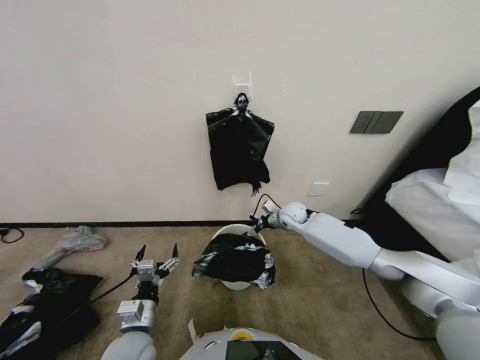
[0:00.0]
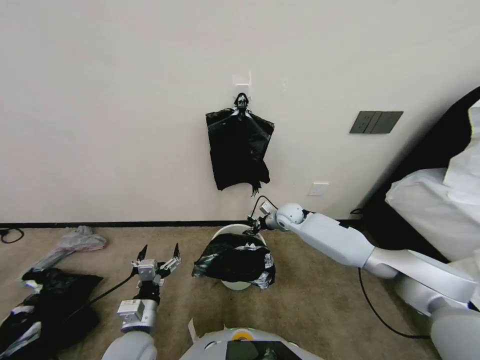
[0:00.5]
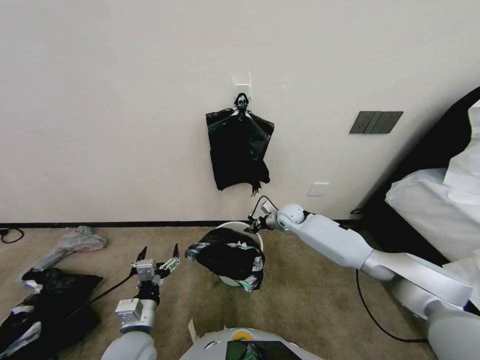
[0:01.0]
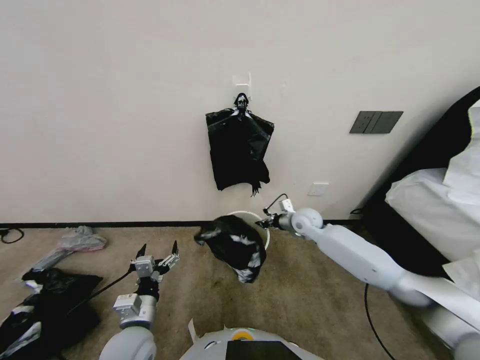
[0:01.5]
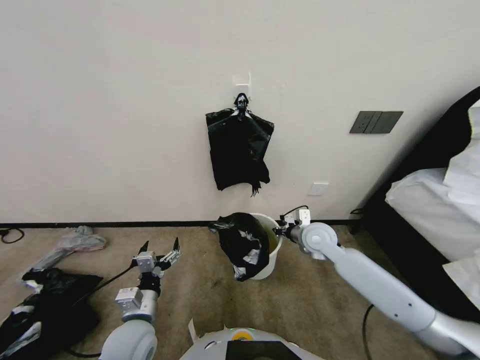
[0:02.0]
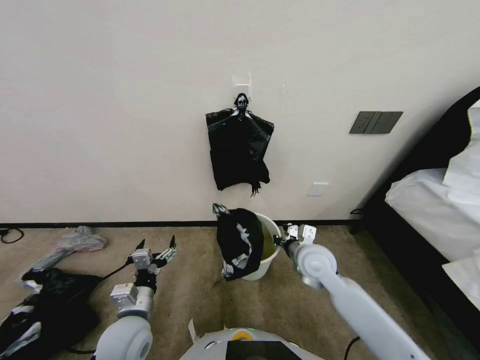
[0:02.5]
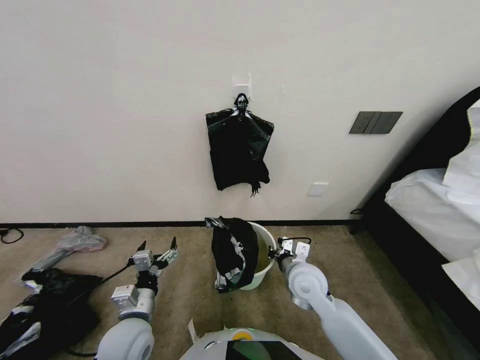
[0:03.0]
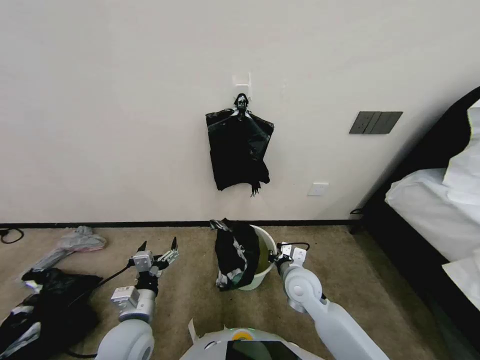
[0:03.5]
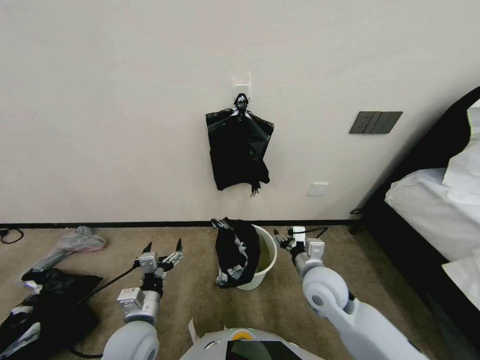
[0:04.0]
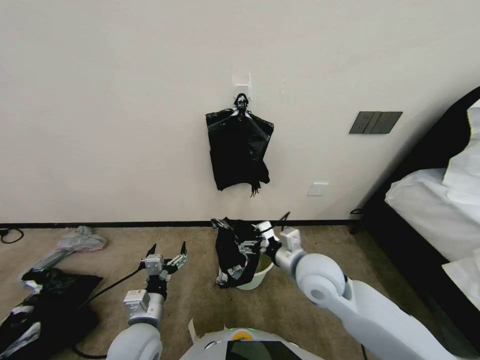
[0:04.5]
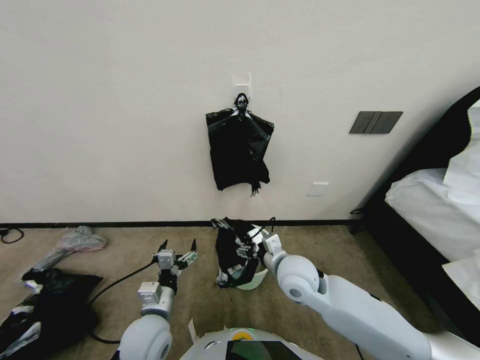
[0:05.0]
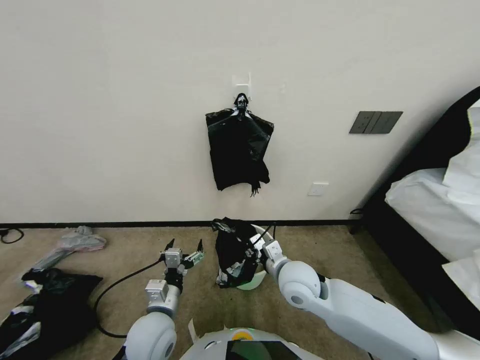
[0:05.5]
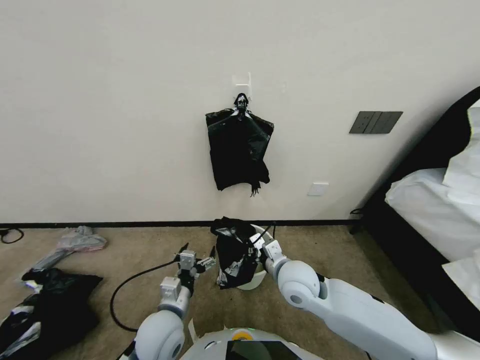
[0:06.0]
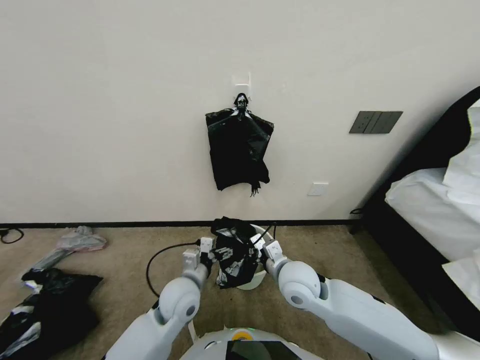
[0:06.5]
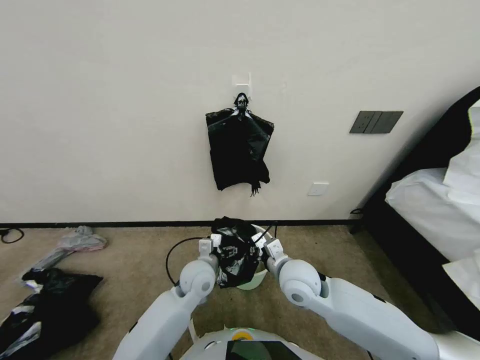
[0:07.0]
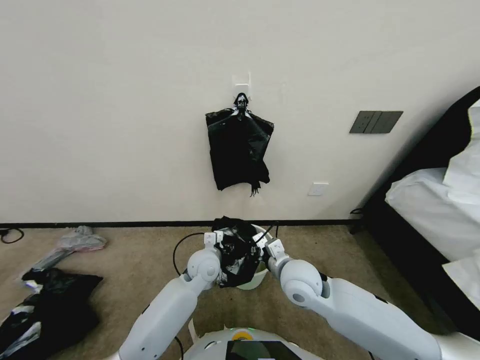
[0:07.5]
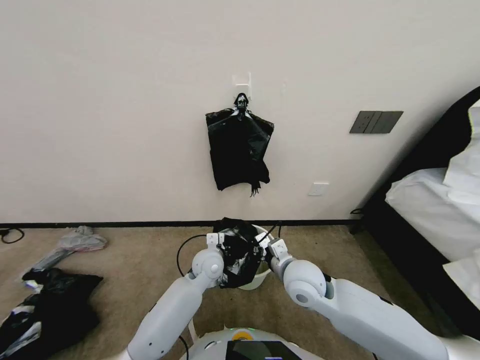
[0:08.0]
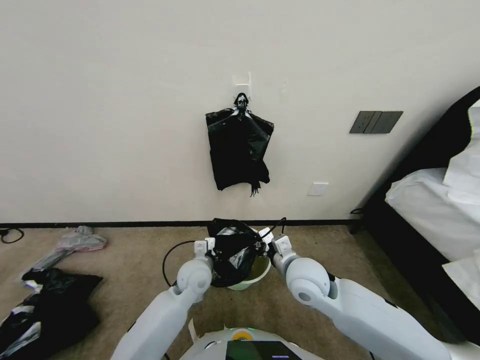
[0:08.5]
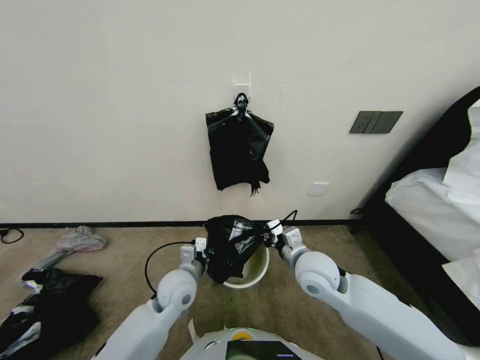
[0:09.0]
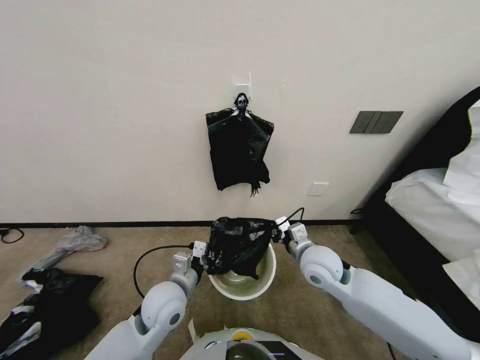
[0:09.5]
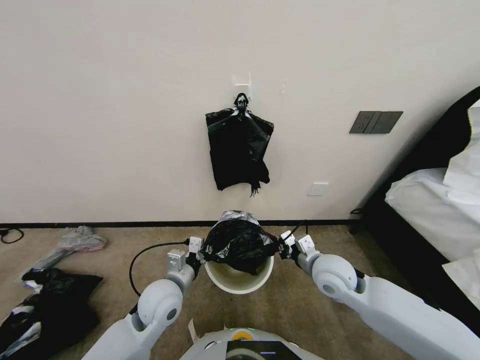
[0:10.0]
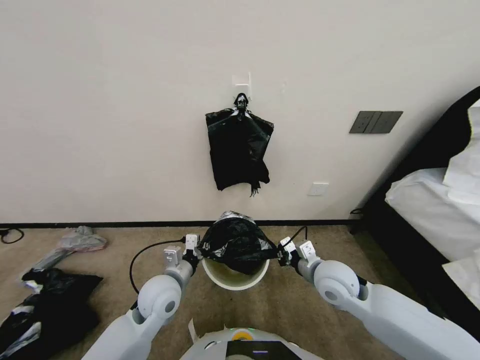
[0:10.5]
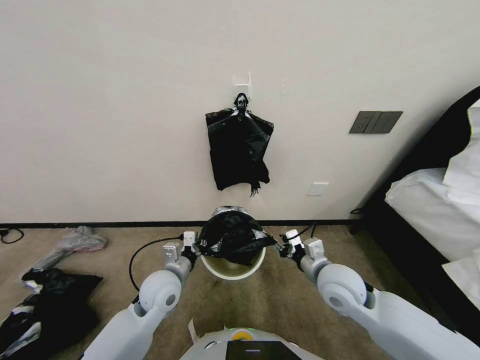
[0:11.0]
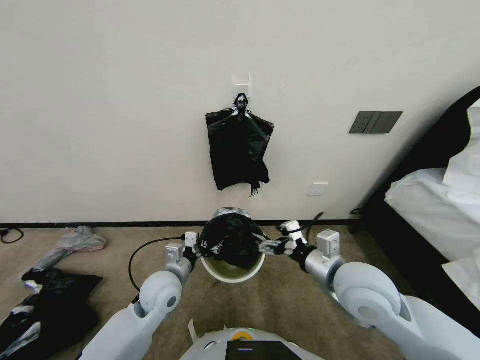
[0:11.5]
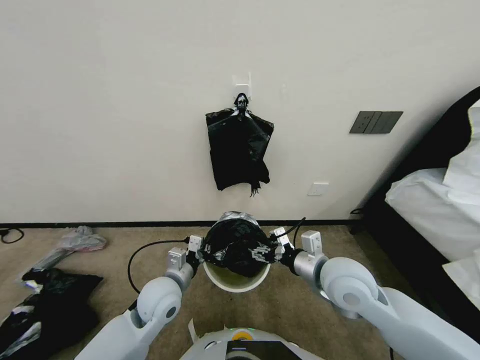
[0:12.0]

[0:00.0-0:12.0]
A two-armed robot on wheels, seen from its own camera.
Task of the whole recording: Place a trash bag onto the trash bin.
0:00.0 to 0:02.0: The right gripper moves backward, roughly 10 cm, and closes up.
0:02.0 to 0:04.0: The right gripper moves backward, approximately 15 cm, and opens up.
0:04.0 to 0:06.0: The right gripper is displaced to the left by some 5 cm, and closes its fingers; the left gripper moves some 5 cm.
0:06.0 to 0:08.0: The left gripper goes about 20 cm forward and to the right, and closes.
0:08.0 to 0:10.0: The left gripper is displaced backward and to the left by approximately 15 cm; the right gripper is displaced to the right by some 10 cm.
0:10.0 to 0:12.0: The right gripper shifts about 5 cm upward, and opens.

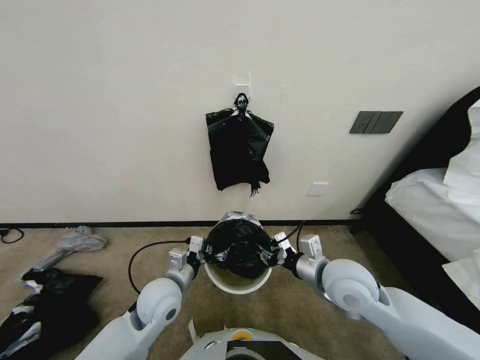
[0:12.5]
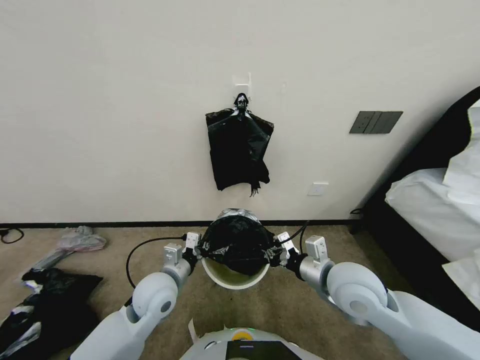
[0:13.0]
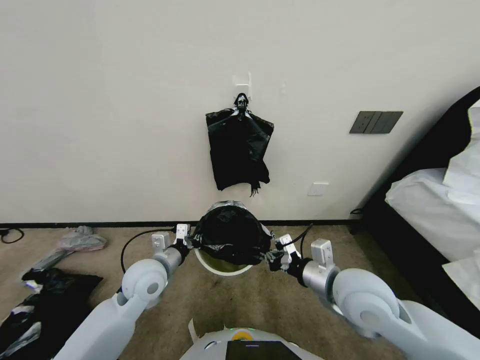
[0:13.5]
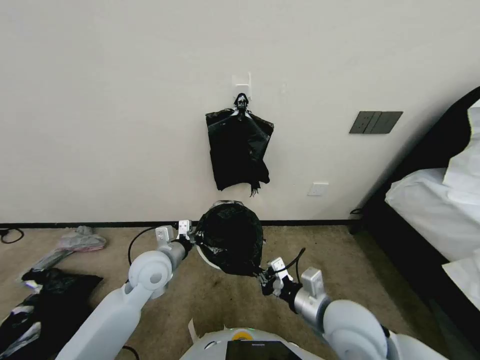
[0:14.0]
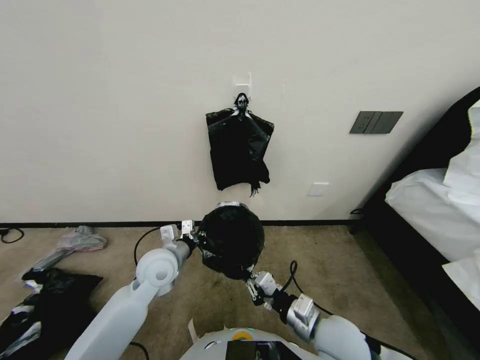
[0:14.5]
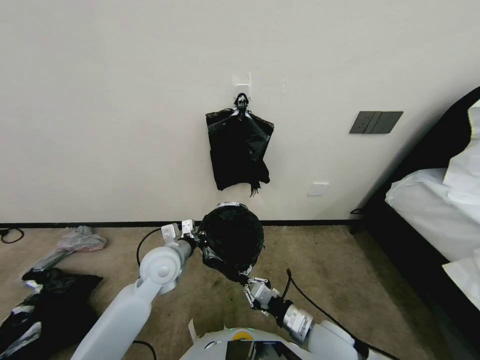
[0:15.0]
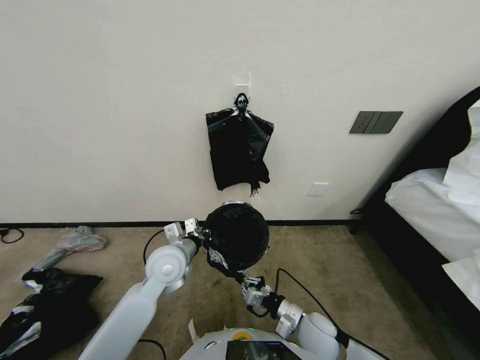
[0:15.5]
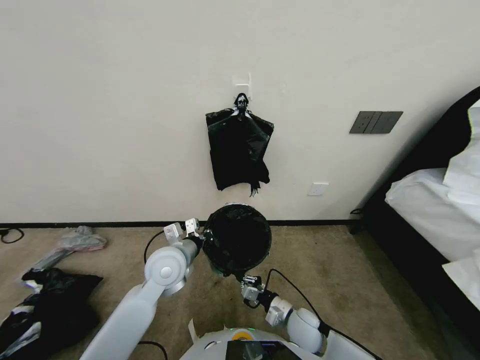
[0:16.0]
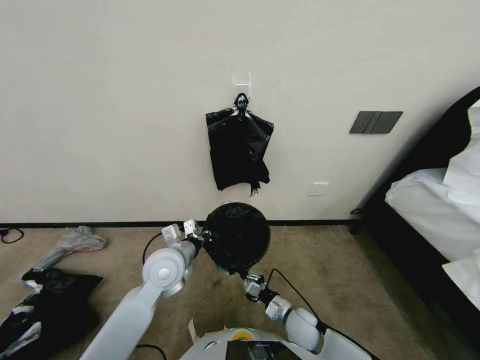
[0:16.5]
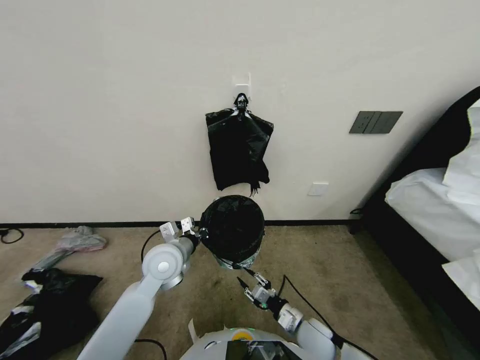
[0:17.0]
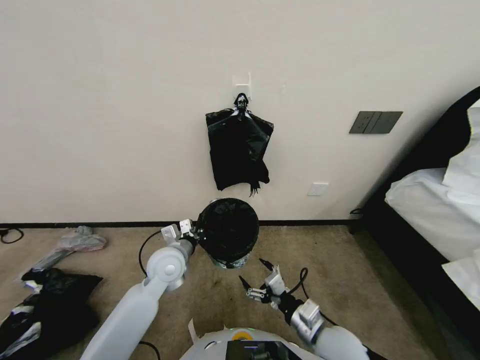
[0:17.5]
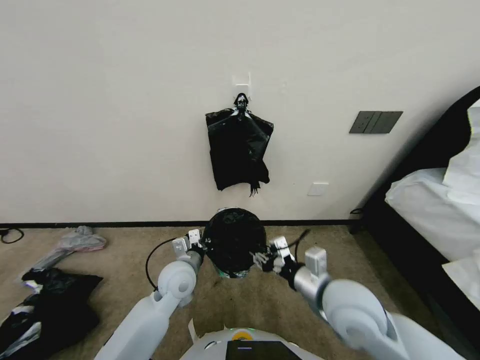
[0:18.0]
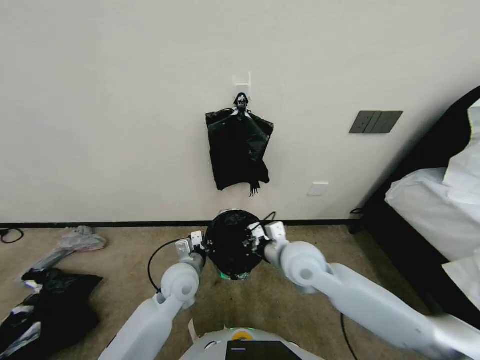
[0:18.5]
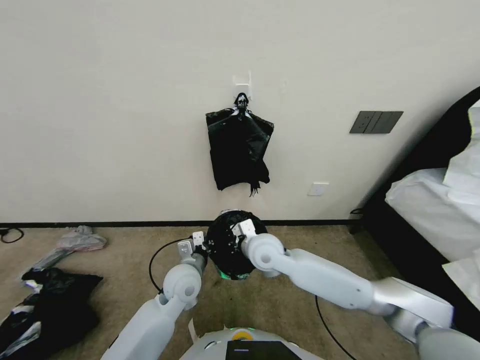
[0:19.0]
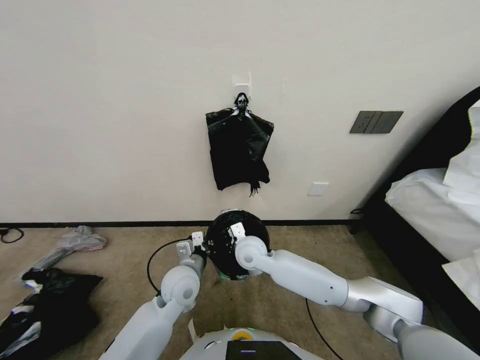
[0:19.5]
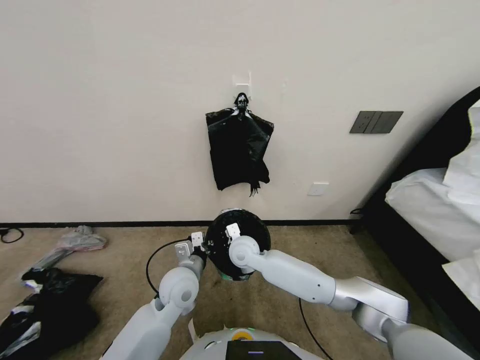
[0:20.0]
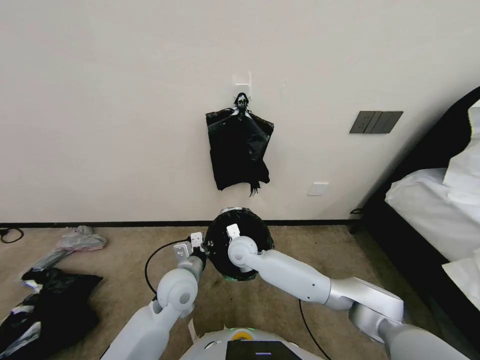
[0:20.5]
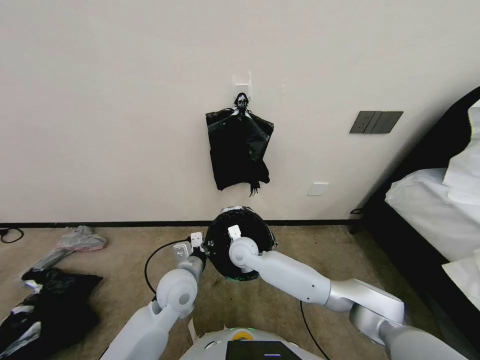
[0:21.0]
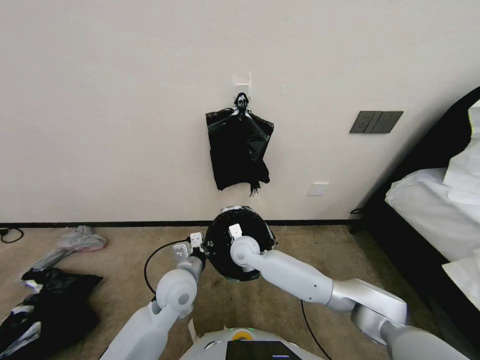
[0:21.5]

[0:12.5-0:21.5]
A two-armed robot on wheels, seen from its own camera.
Task of the whole recording: Place a trash bag onto the trash bin.
0:12.5 to 0:14.5: The left gripper heads forward, covering about 5 cm. Meanwhile the right gripper travels backward and downward by some 10 cm.
0:14.5 to 0:17.0: The right gripper moves downward, about 15 cm.
0:17.0 to 0:19.5: The left gripper goes approximately 5 cm downward; the right gripper heads forward, to the left and upward, covering about 30 cm, and opens, then closes once more.
0:19.5 to 0:21.5: The right gripper moves roughly 5 cm.

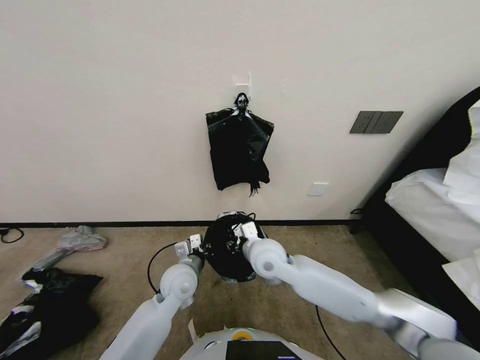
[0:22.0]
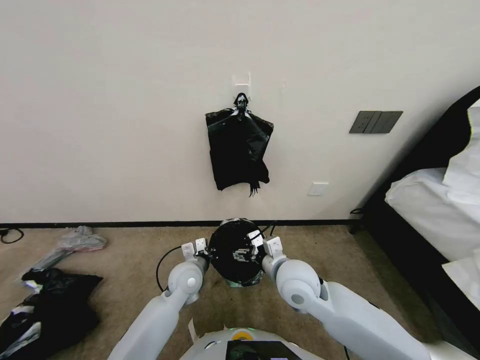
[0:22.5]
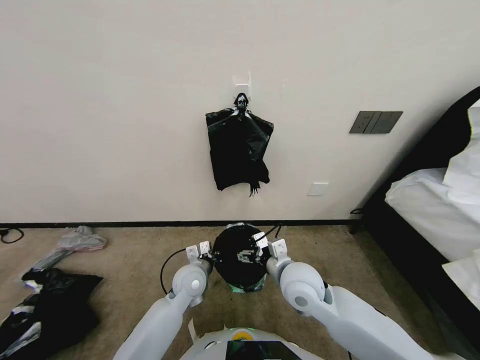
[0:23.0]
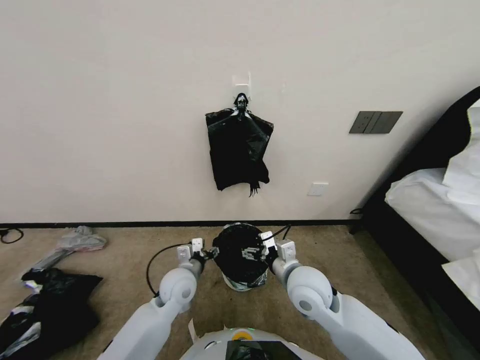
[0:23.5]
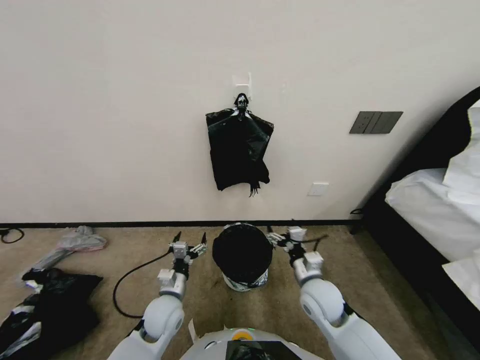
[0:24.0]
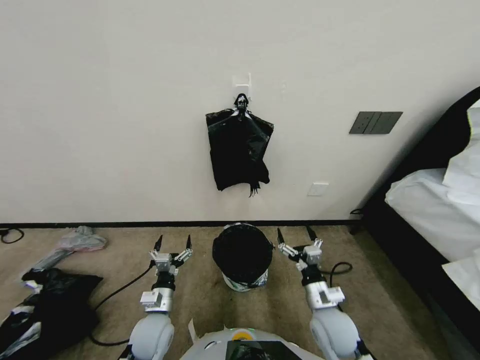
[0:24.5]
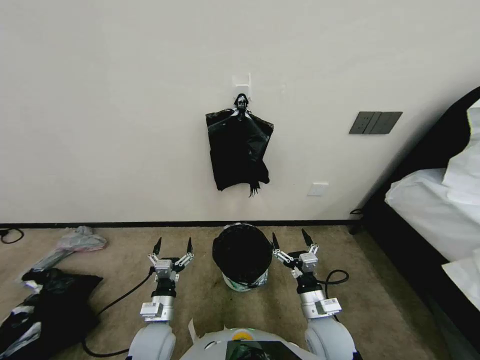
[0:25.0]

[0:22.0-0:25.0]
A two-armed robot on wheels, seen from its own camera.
Task of the whole recording: Place a trash bag onto the trash bin.
0:22.0 to 0:23.5: The left gripper opens its fingers; the right gripper goes some 15 cm to the right and backward, and opens.
0:23.5 to 0:25.0: The right gripper shifts approximately 15 cm downward, backward and to the right, while the left gripper heads backward, downward and to the left, covering about 15 cm, and opens.

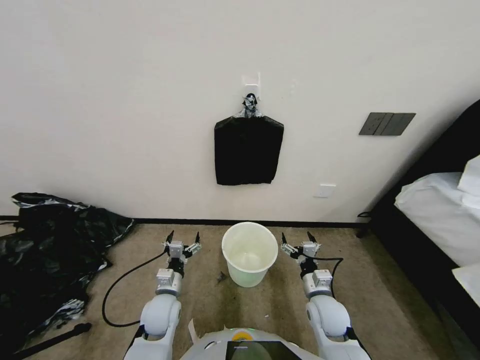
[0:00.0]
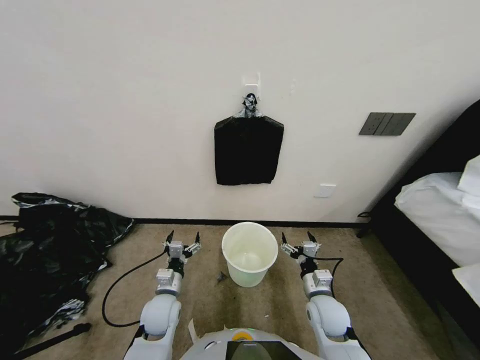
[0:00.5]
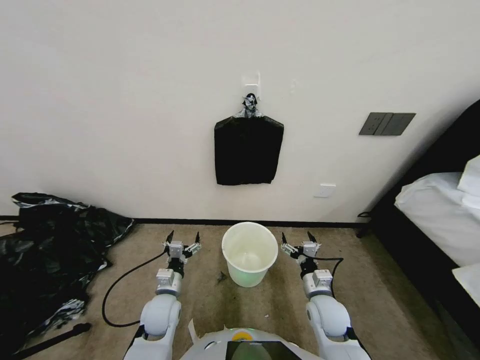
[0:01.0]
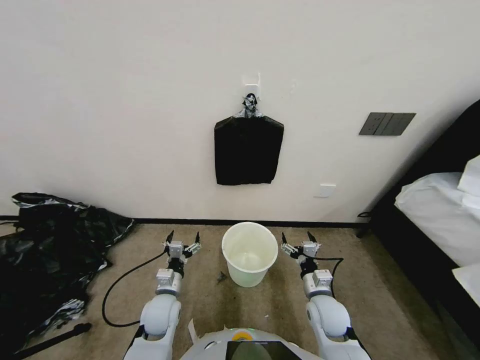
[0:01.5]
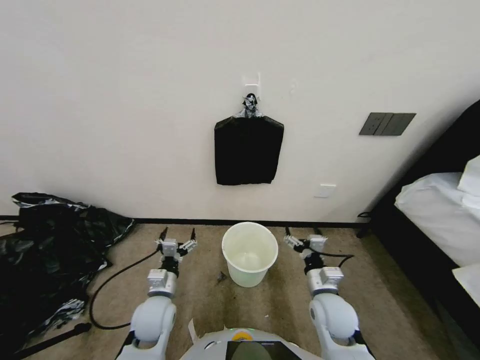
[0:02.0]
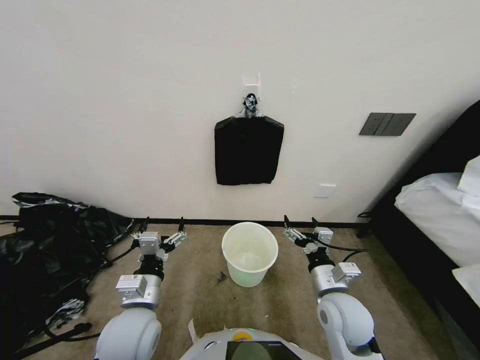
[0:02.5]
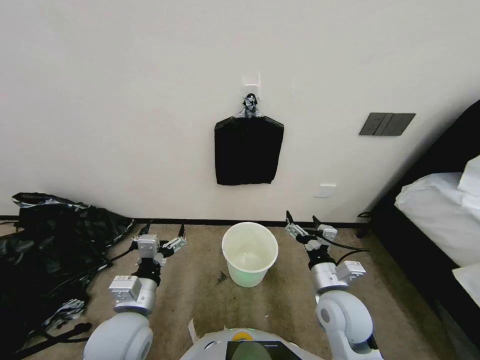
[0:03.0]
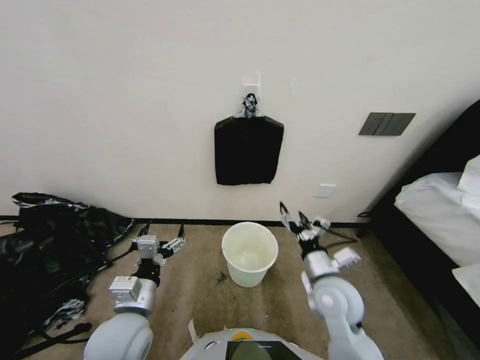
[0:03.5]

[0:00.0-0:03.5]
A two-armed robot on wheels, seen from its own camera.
Task of the whole recording: Place a trash bag onto the trash bin.
0:02.0 to 0:03.5: The right gripper goes about 10 cm upward; the left gripper goes some 15 cm upward and backward.
